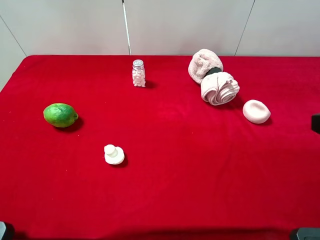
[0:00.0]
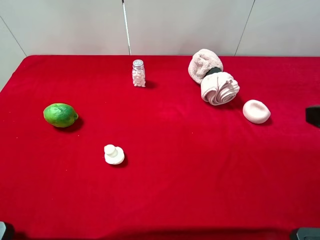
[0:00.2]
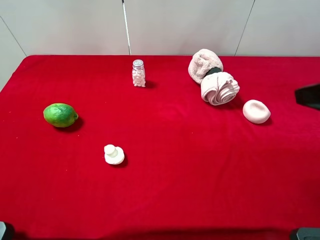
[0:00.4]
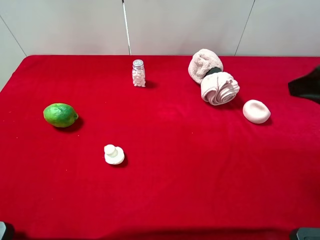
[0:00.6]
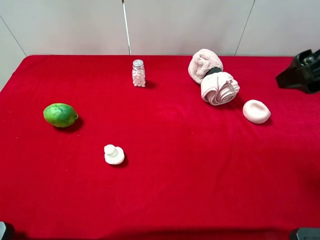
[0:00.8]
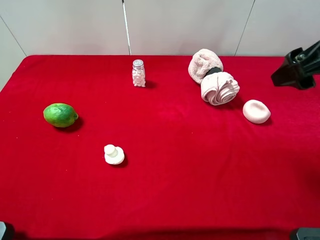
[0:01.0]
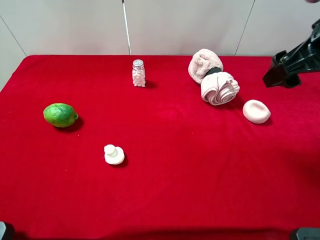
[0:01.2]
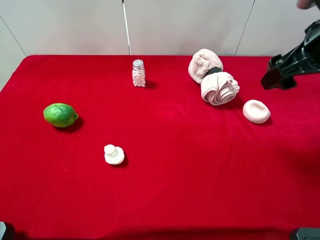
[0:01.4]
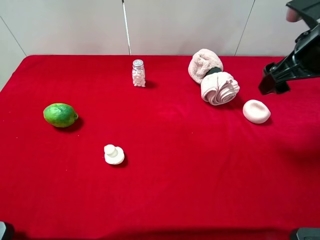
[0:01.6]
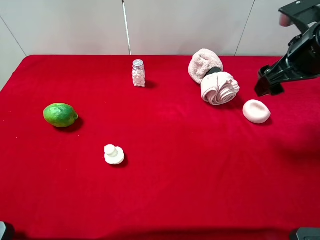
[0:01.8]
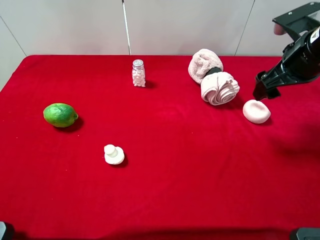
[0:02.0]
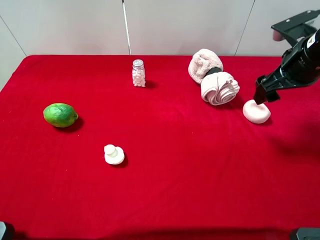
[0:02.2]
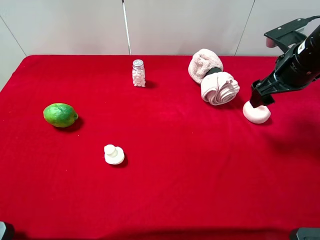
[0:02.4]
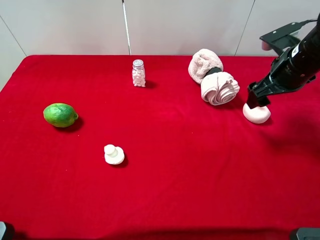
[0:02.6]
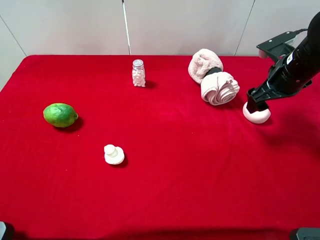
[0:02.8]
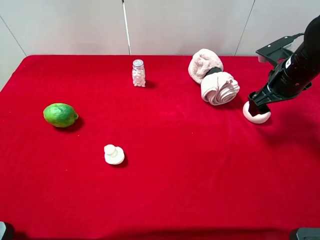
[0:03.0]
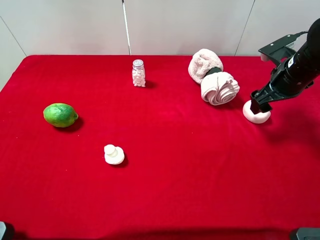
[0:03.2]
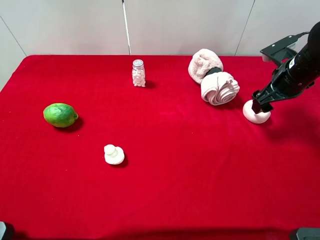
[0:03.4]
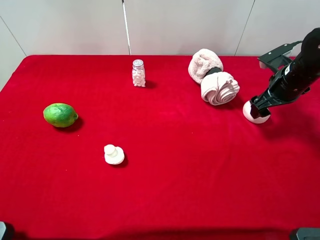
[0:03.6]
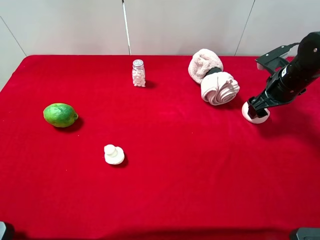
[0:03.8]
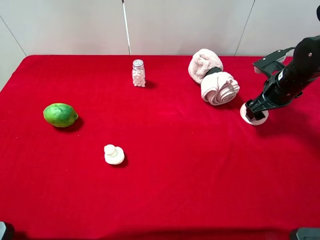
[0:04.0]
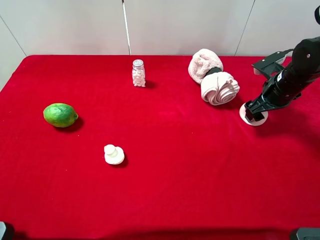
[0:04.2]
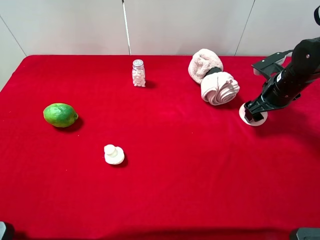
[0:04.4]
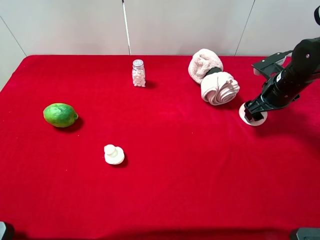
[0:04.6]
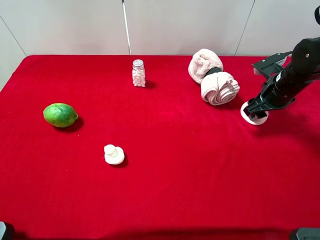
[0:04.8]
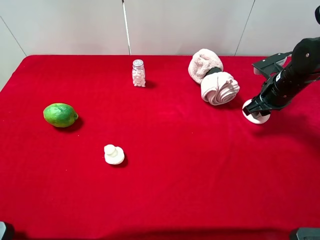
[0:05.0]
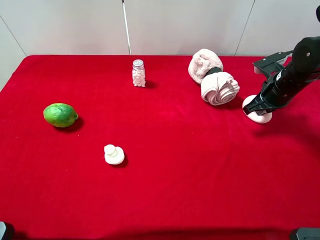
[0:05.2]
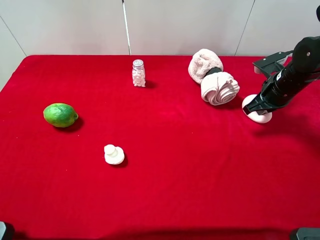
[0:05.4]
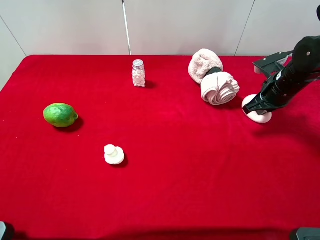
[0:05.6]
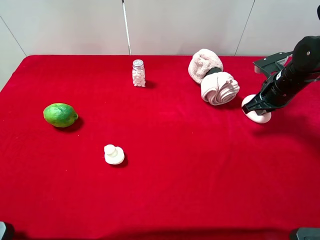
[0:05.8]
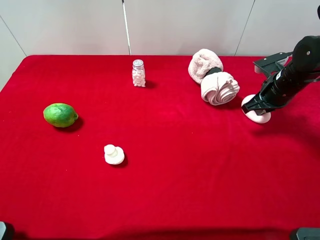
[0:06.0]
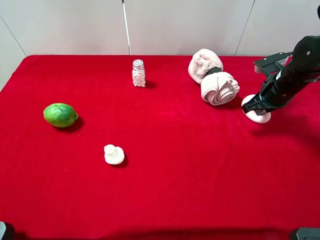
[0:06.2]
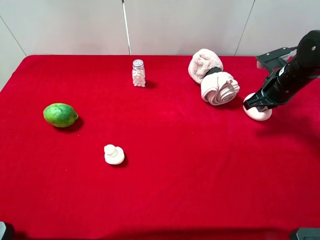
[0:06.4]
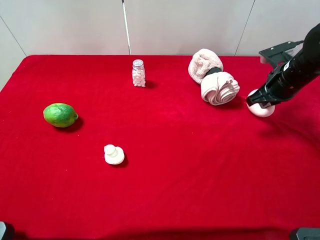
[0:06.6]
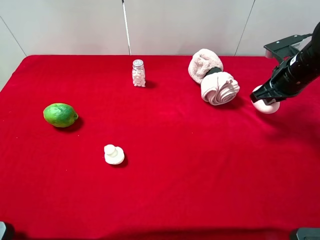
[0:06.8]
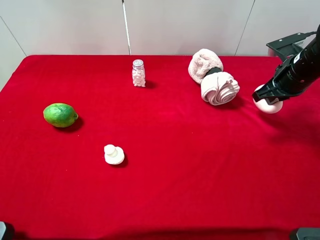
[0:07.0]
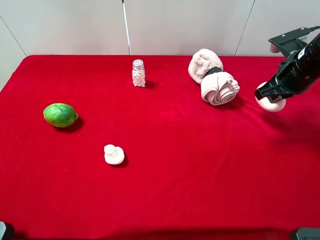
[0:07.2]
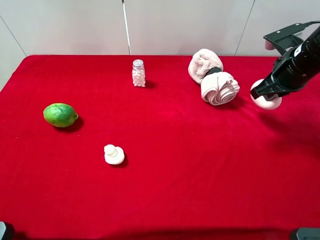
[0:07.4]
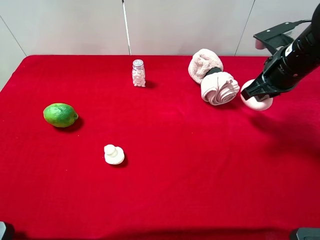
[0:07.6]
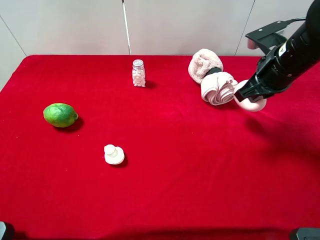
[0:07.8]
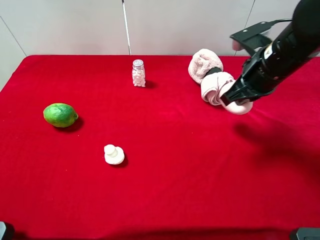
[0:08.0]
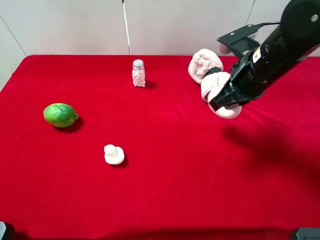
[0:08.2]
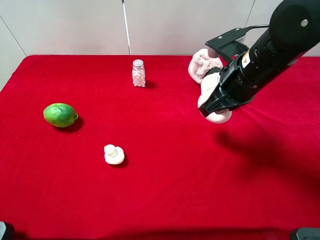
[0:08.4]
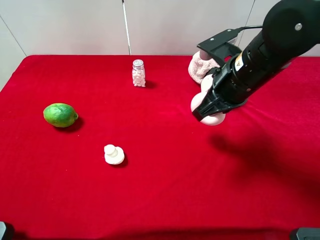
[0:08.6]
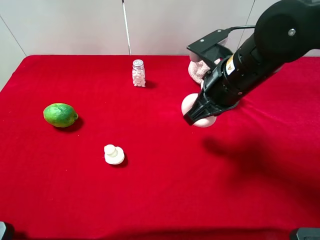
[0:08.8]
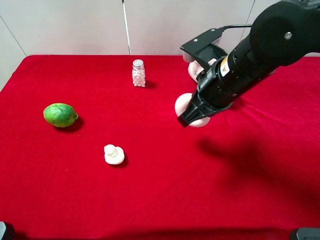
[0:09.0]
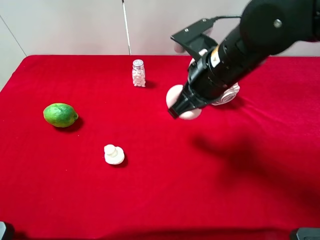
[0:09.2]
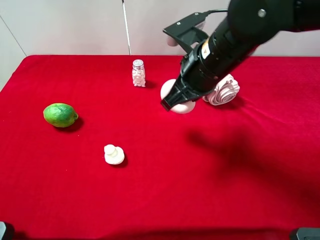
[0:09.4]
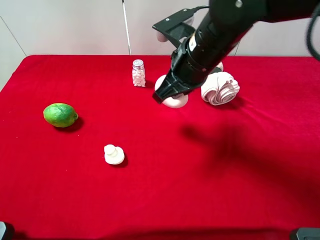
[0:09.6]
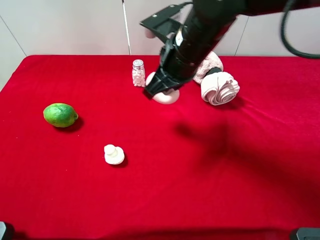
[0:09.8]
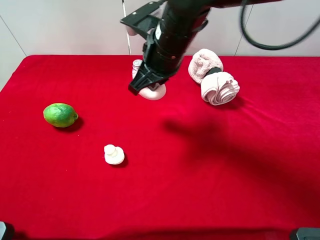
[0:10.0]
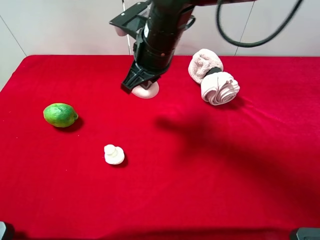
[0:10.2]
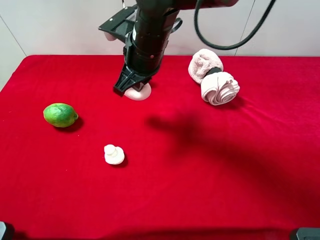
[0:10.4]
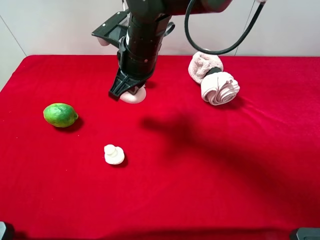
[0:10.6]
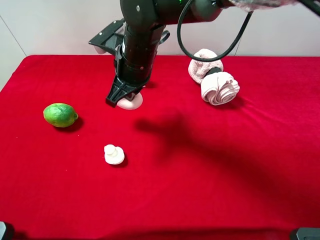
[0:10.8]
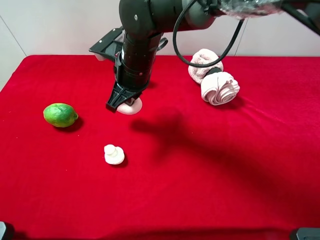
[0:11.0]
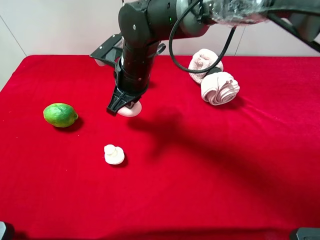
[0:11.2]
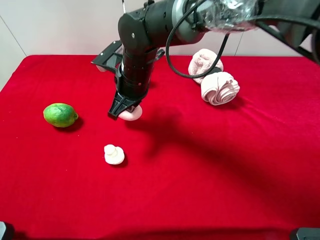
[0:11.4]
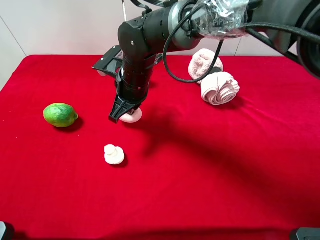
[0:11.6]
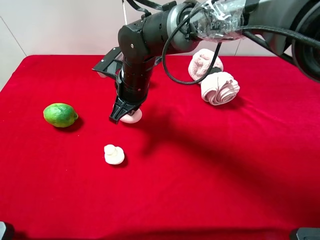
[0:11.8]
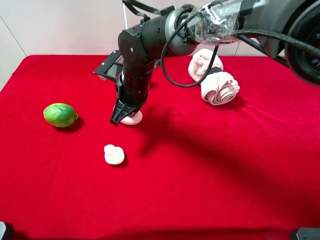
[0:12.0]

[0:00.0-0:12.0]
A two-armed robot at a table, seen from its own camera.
Task of the whole recording: the gripper move the object.
Step, 0:00.0 to 0:05.2: Grasp the peach with the right gripper.
0:00.0 to 0:01.6: The right gripper travels forward by approximately 20 cm.
0:01.6 to 0:03.0: The right gripper shifts roughly 10 cm downward and forward.
0:03.0 to 0:04.4: The right gripper shifts by some 5 cm.
0:04.4 to 0:06.0: The right gripper closes.
0:06.0 to 0:07.6: The right gripper shifts approximately 10 cm upward.
0:07.6 to 0:09.0: The right gripper heads to the left and backward, covering some 15 cm.
0:09.0 to 0:10.4: The right gripper heads to the left and forward, covering some 15 cm.
0:10.4 to 0:12.0: The right gripper moves downward, some 10 cm.

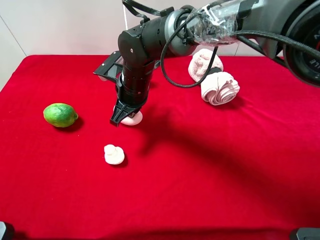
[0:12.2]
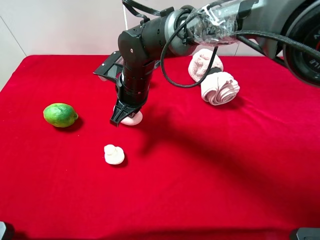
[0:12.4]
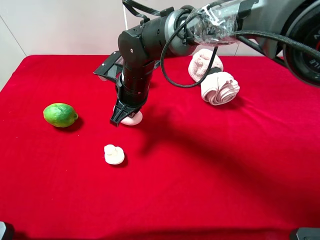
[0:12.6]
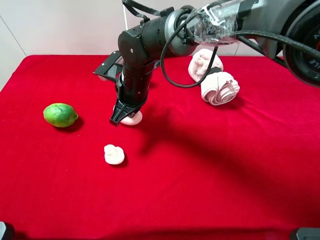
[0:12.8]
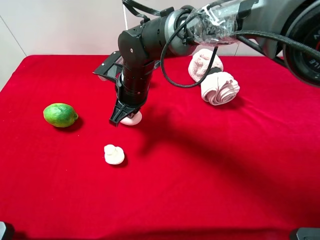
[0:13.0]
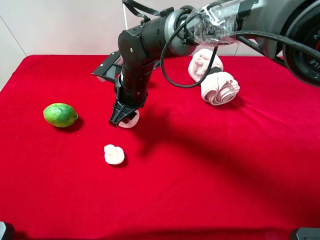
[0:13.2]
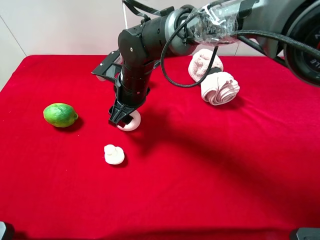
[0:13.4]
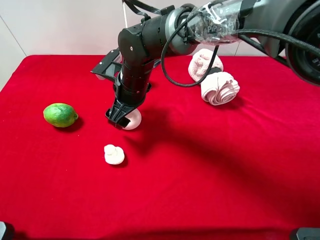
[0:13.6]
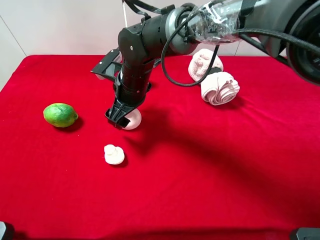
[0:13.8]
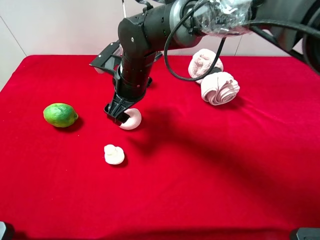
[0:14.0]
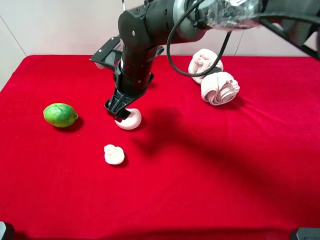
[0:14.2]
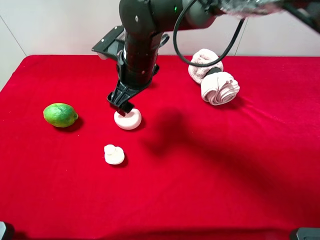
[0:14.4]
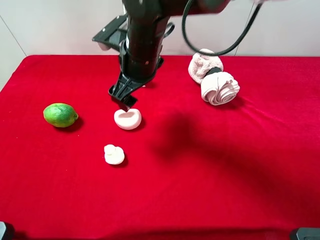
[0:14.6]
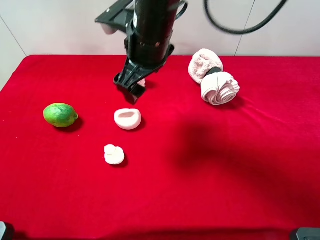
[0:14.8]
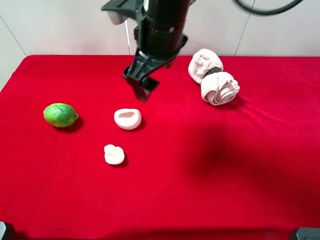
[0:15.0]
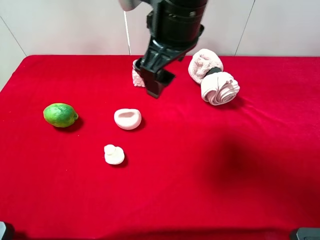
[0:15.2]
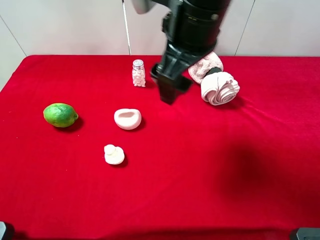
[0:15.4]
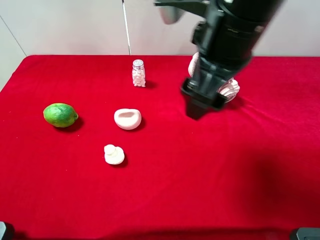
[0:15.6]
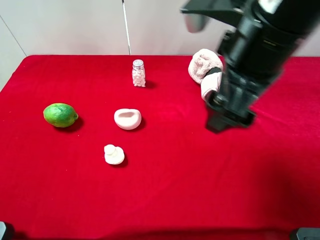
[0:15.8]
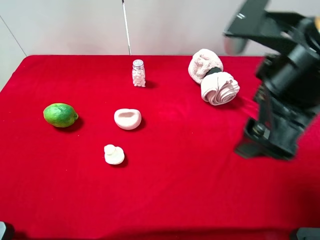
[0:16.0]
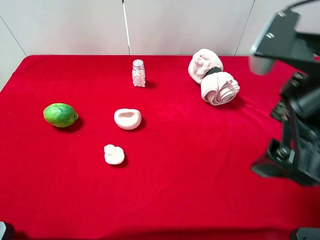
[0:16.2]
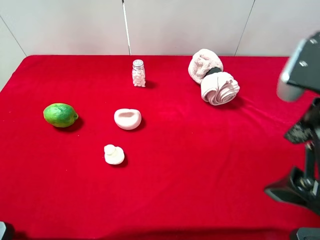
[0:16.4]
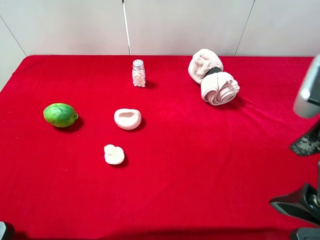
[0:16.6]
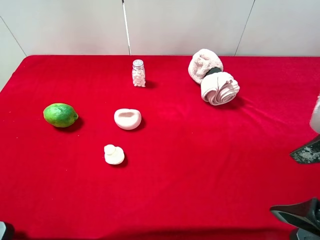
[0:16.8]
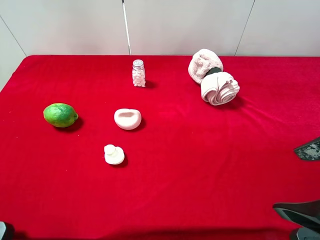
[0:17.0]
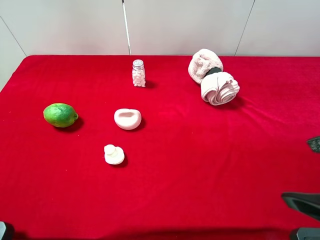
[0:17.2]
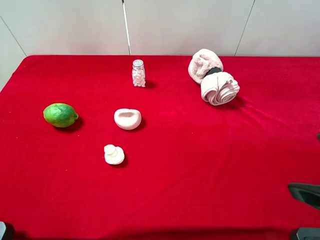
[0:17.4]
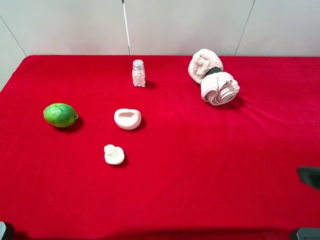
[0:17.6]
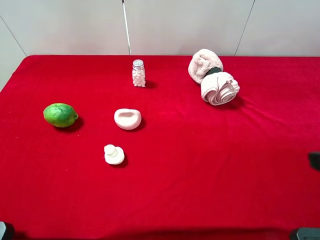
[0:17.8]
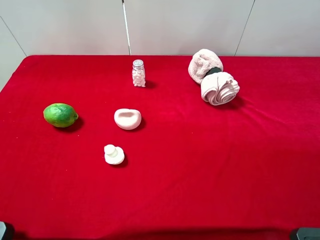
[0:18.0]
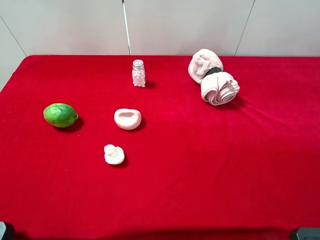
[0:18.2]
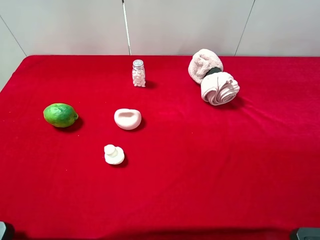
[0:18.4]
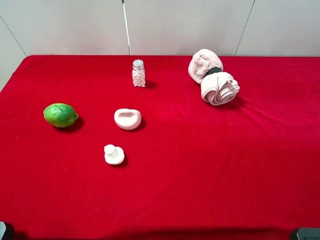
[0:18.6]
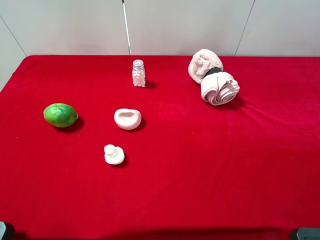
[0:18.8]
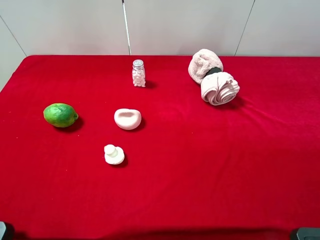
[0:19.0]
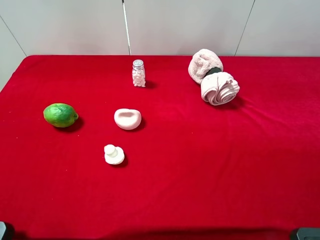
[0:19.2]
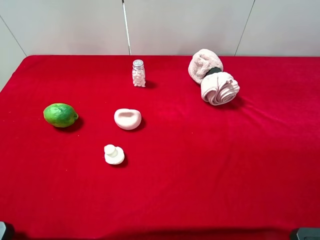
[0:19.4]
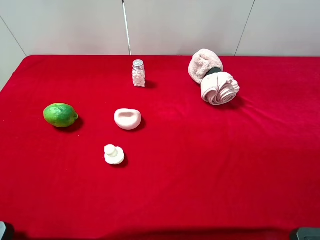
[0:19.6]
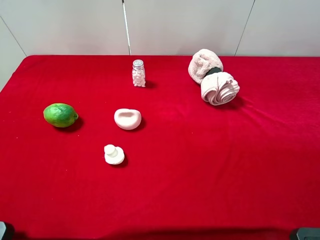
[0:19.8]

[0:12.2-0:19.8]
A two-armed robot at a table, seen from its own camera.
Task of the whole recording: the gripper move the object.
Step, 0:12.2 to 0:14.6: Place the peach on the table with the right gripper.
0:12.2 to 0:13.8: The right gripper opens up.
0:13.8 to 0:15.2: The right gripper shifts roughly 20 cm upward and to the right.
0:15.2 to 0:16.8: The right gripper heads to the right and backward, covering approximately 25 cm.
0:16.8 to 0:18.2: The right gripper shifts roughly 5 cm to the right.

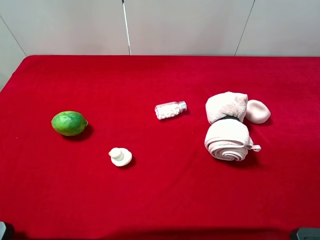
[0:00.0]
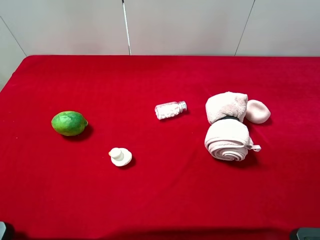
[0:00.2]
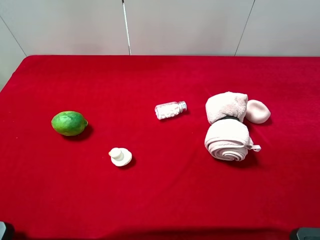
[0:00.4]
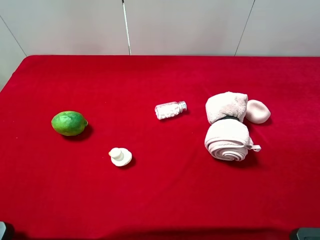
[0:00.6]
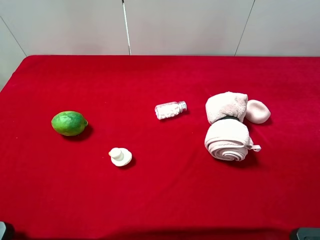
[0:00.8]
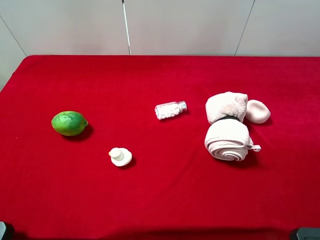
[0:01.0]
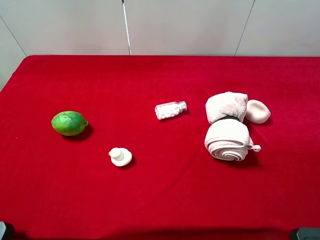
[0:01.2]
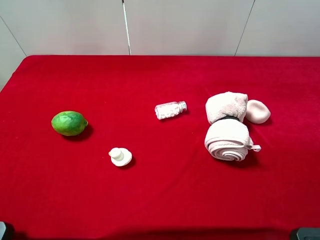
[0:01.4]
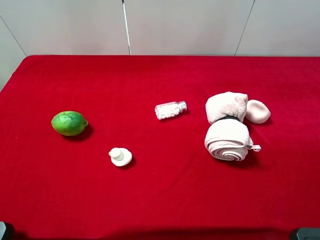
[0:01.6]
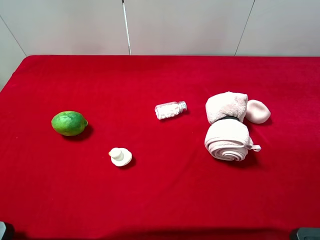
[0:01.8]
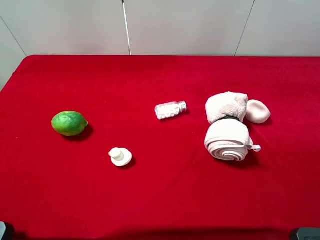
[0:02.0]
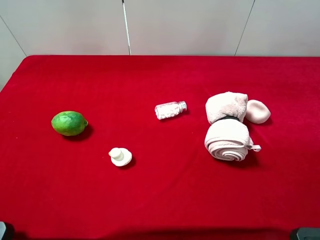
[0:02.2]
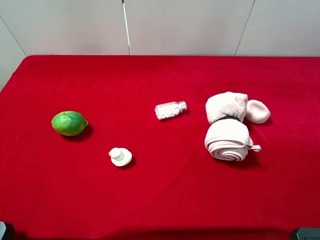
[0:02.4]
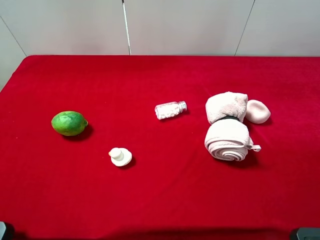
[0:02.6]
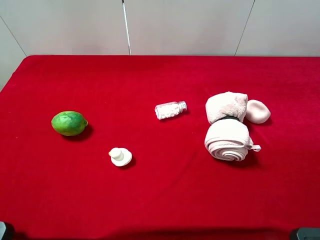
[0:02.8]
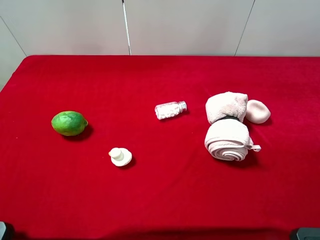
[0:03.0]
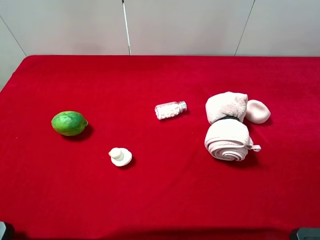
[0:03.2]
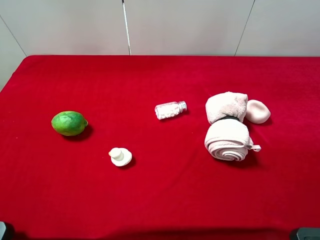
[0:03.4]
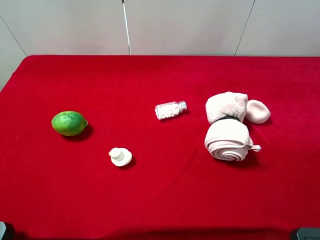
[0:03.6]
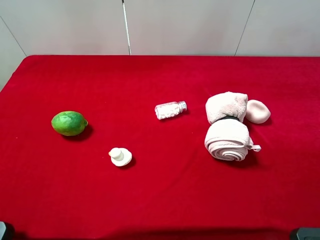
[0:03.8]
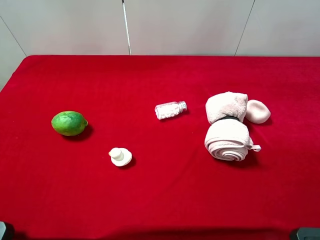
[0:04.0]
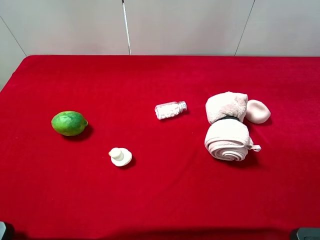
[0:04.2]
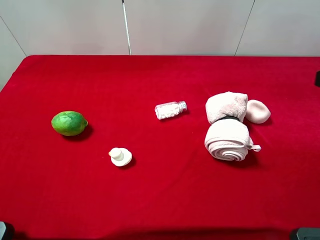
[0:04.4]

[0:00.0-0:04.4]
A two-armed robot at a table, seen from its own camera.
Task of the whole recording: the gripper move the object.
0:00.0 to 0:03.0: Both grippers stay about where they are.
